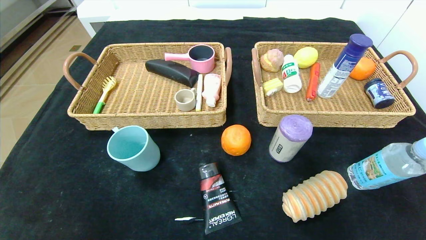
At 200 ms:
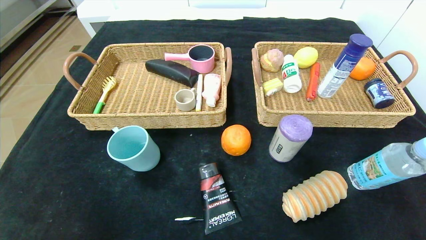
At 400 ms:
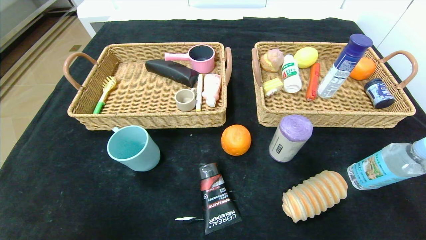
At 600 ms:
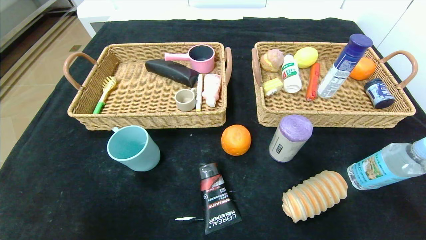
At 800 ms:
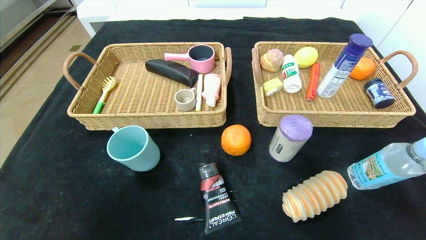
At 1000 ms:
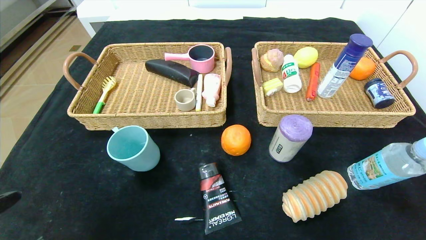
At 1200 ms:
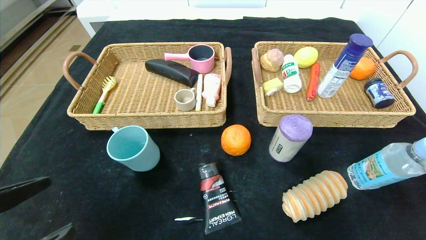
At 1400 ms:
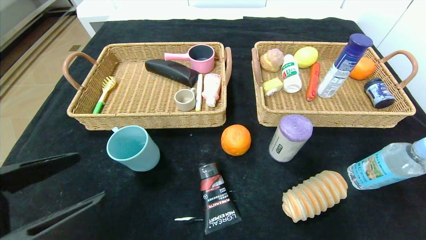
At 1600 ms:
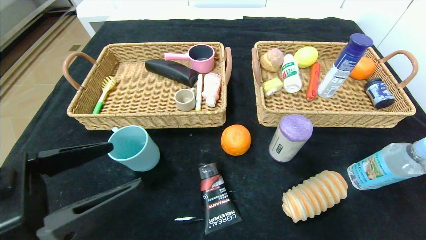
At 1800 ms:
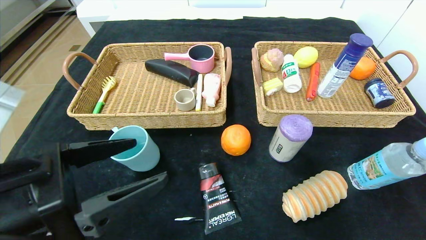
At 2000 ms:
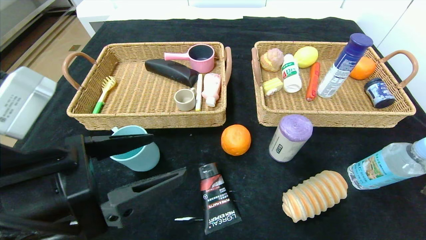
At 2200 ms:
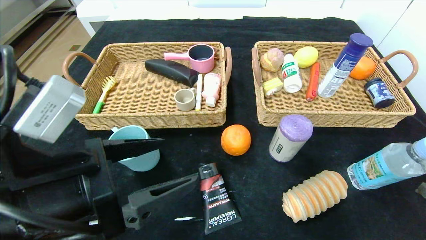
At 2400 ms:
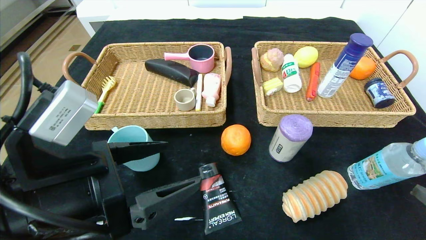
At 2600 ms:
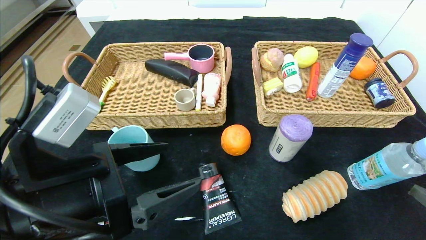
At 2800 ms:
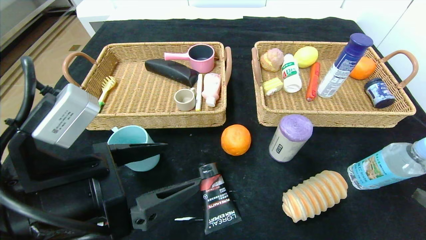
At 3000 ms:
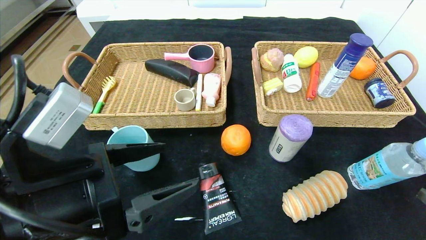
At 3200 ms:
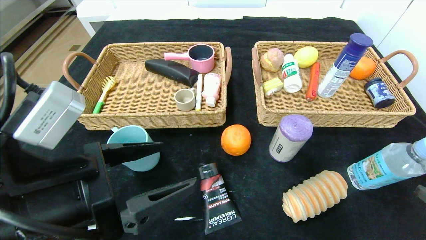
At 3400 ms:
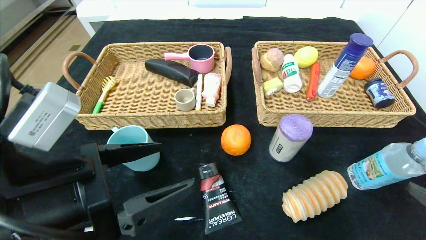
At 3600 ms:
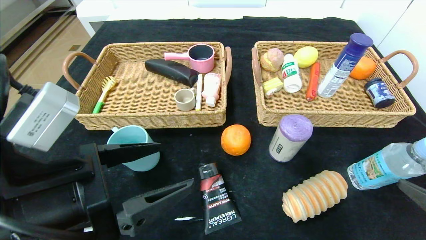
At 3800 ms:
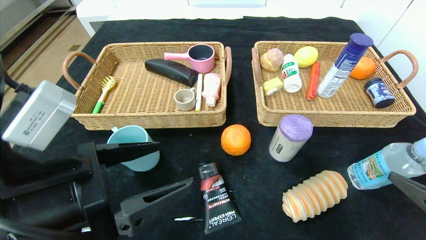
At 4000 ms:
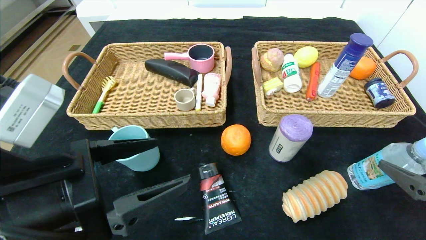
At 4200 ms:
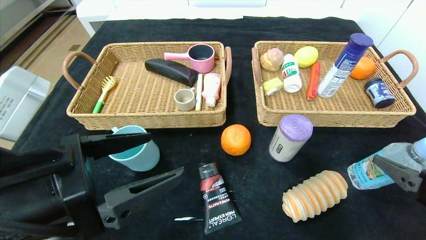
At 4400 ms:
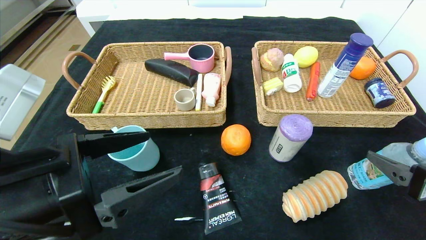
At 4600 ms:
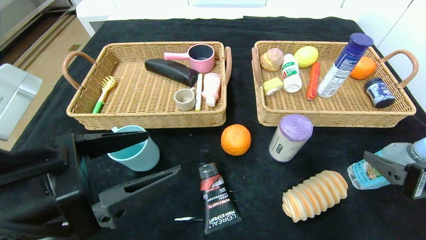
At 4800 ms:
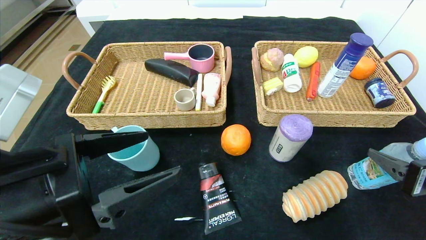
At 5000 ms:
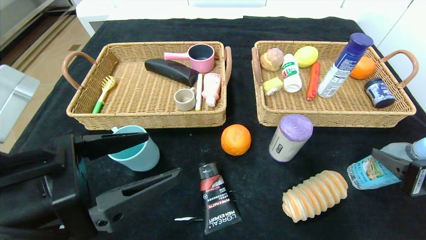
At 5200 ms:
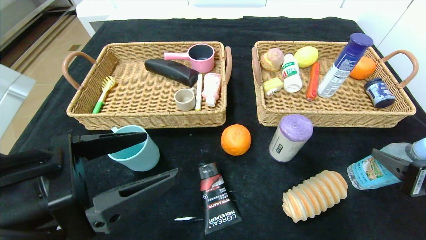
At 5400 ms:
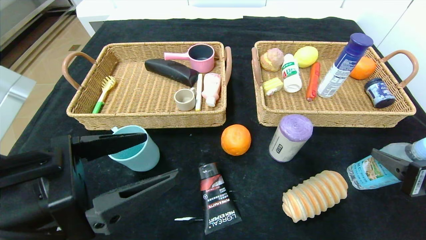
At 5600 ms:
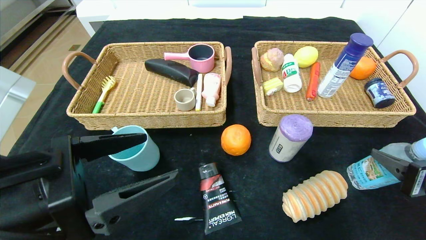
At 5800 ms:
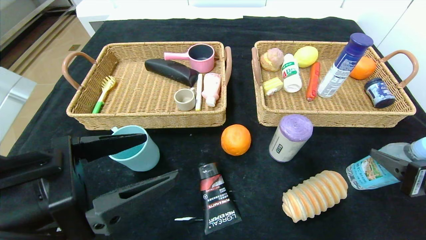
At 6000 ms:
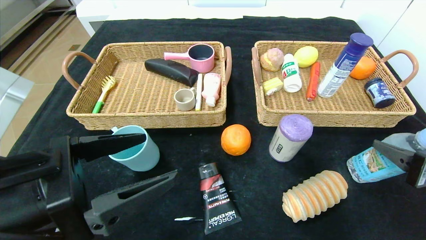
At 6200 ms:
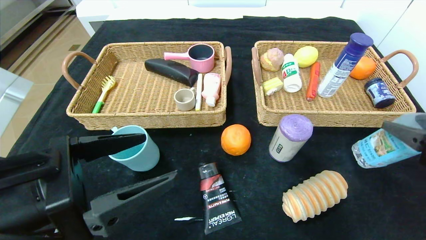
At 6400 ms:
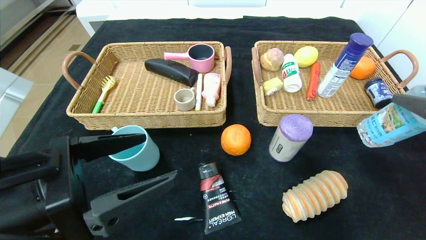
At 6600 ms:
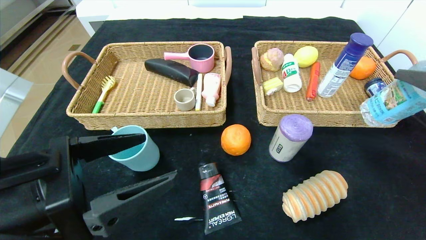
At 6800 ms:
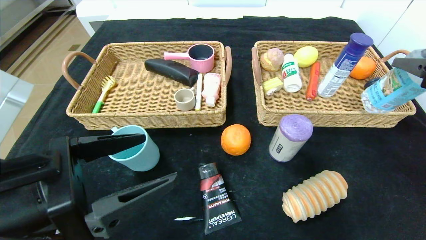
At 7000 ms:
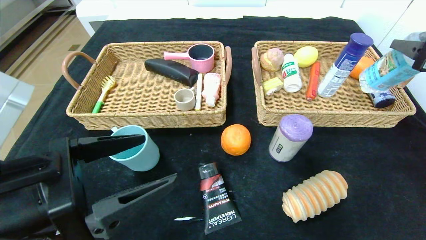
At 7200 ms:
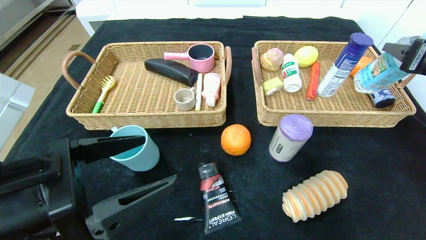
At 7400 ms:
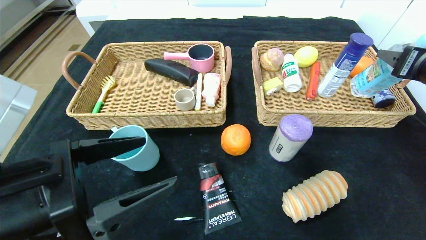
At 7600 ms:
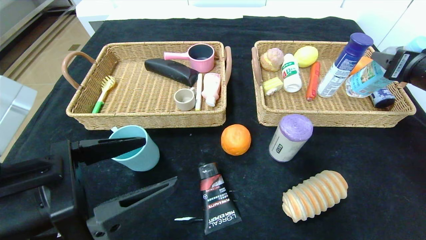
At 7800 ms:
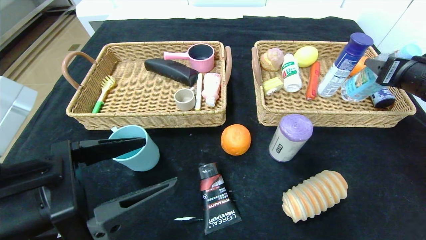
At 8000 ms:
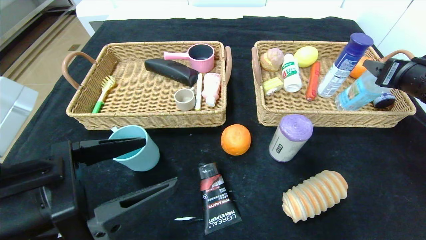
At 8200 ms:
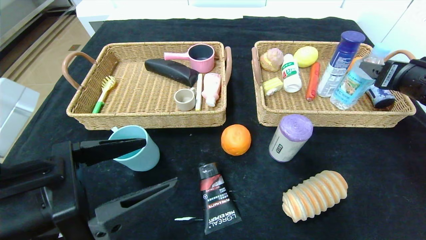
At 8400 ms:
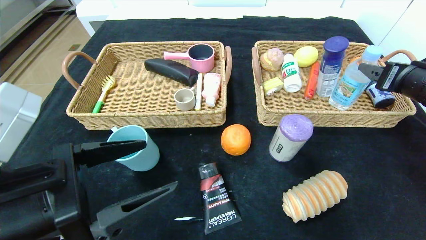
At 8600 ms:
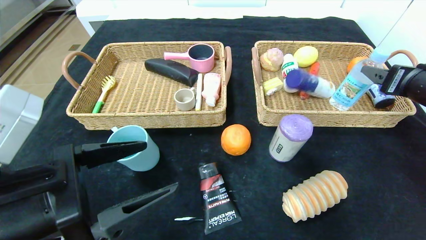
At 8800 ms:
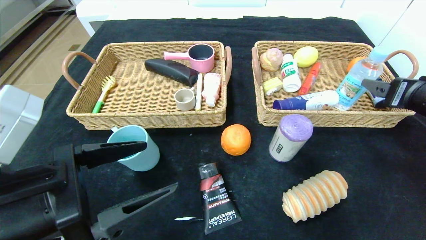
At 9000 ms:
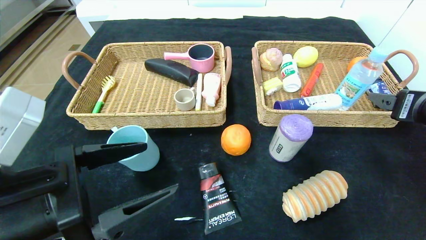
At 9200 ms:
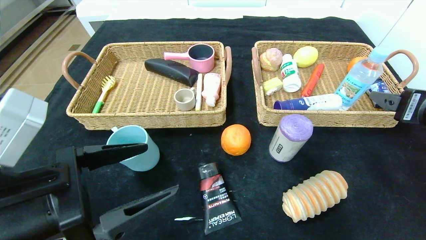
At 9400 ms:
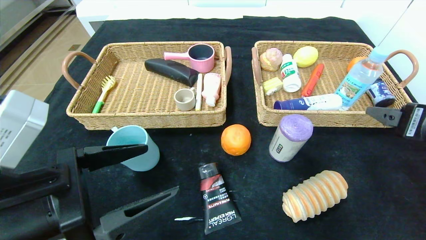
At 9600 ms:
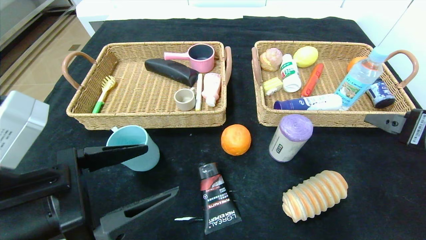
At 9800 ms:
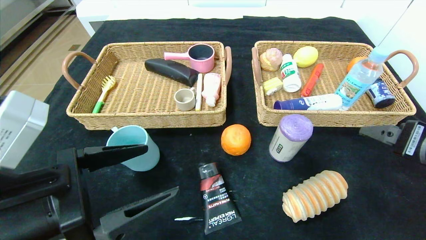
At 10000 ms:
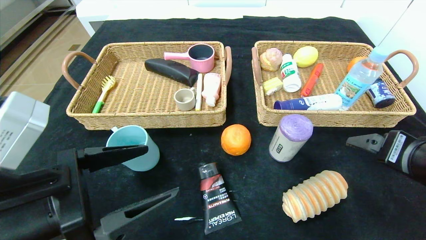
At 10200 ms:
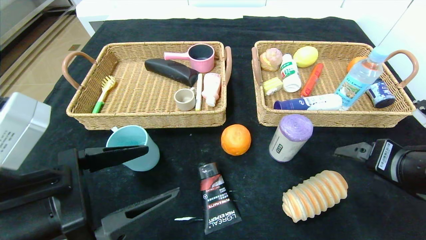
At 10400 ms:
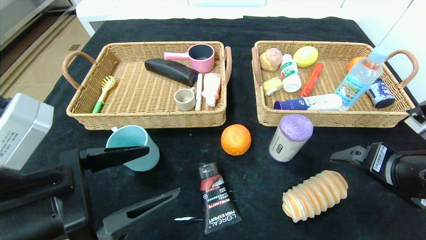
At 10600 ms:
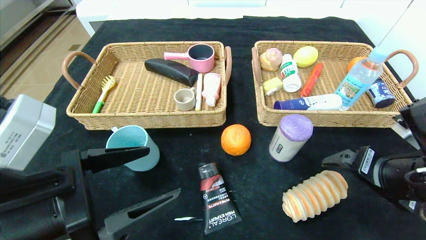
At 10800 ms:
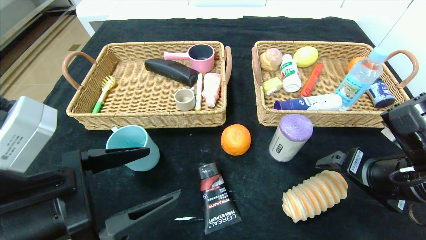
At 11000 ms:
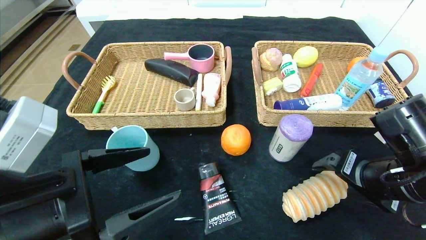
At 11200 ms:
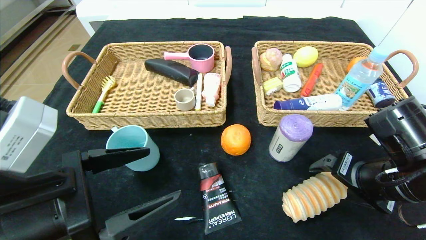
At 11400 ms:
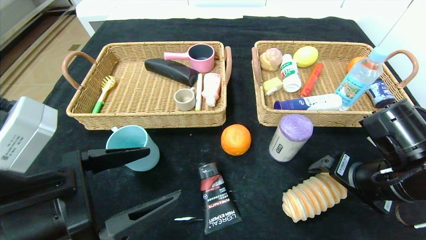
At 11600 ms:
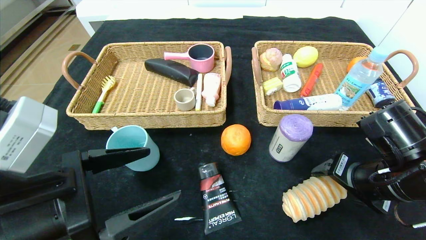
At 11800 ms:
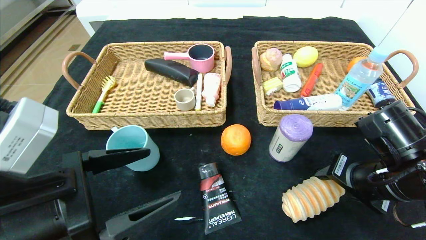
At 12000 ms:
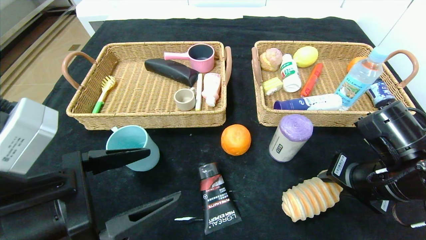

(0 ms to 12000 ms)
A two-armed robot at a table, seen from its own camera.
Step, 0 ms - 8200 ms: Grasp the soda water and put it in the right basket.
0 ms - 1600 ms: Both grippers move upward and forward, some 20 cm.
1600 ms - 3000 ms: The left gripper shifts by roughly 5 cm.
3000 ms - 4400 ms: The right gripper is displaced forward by some 10 cm.
4400 ms - 6000 ms: The right gripper closes.
6000 ms - 7600 ms: The right gripper goes some 15 cm forward and upward.
7600 ms - 9000 ms: The right gripper shifts roughly 5 cm backward, and opens its fingers.
9000 ms - 10400 ms: The right gripper moves to the left, some 5 cm.
10400 ms - 12000 ms: The right gripper ends up roughly 5 cm from where it was, and closes.

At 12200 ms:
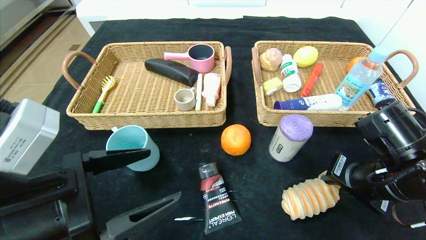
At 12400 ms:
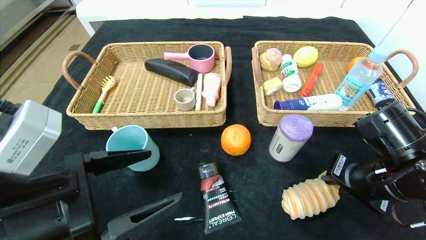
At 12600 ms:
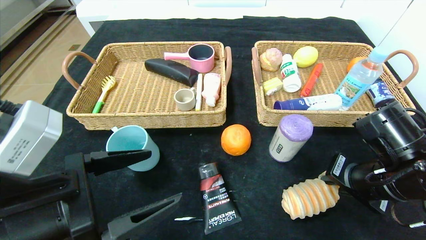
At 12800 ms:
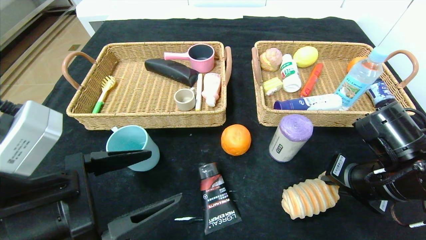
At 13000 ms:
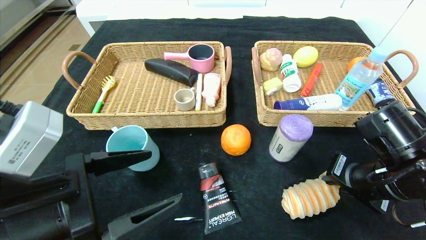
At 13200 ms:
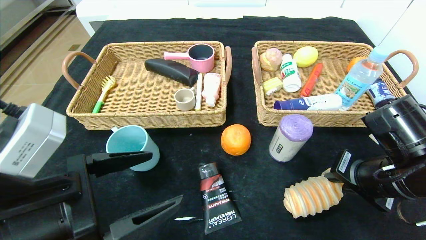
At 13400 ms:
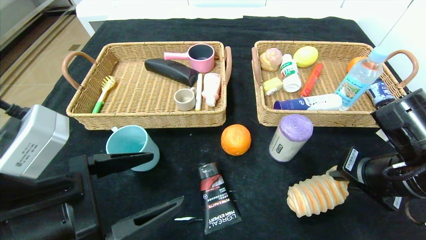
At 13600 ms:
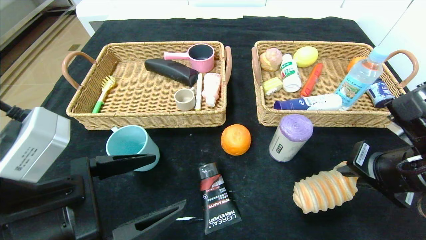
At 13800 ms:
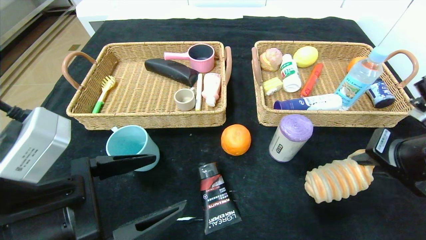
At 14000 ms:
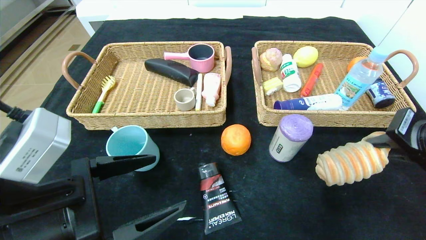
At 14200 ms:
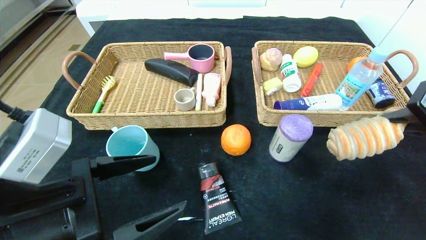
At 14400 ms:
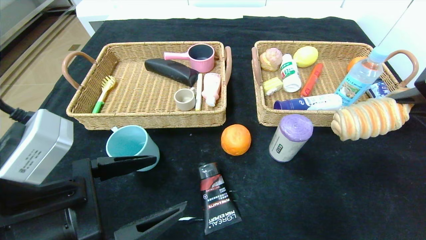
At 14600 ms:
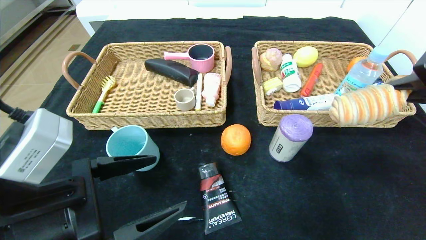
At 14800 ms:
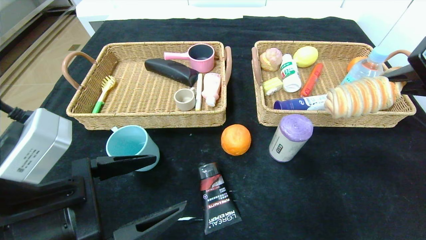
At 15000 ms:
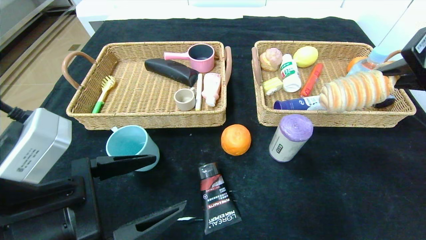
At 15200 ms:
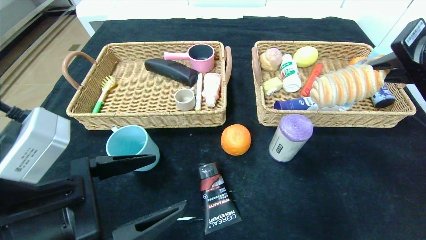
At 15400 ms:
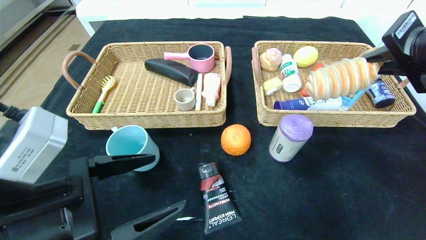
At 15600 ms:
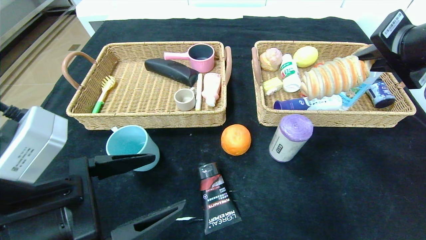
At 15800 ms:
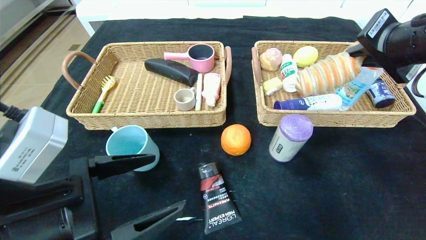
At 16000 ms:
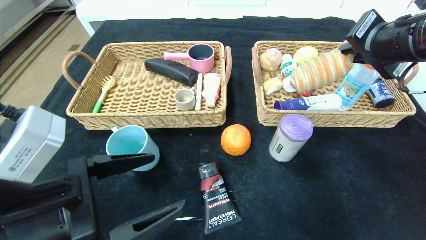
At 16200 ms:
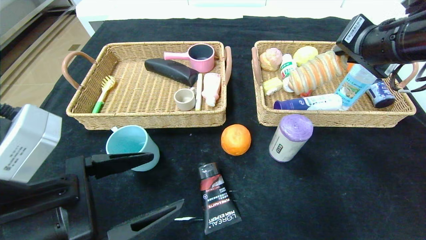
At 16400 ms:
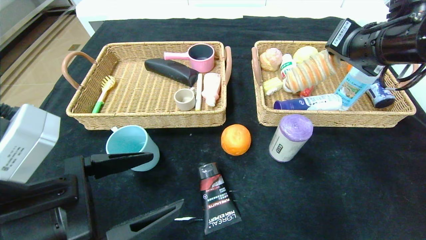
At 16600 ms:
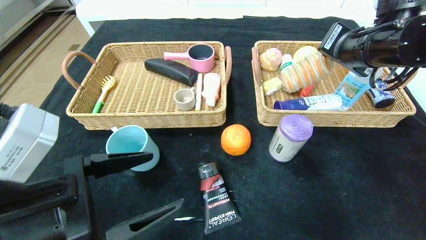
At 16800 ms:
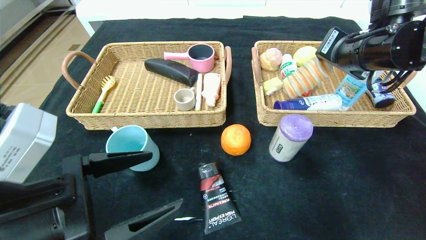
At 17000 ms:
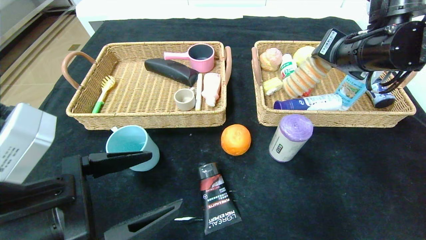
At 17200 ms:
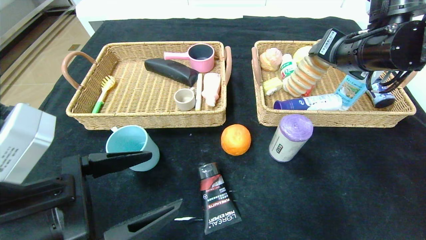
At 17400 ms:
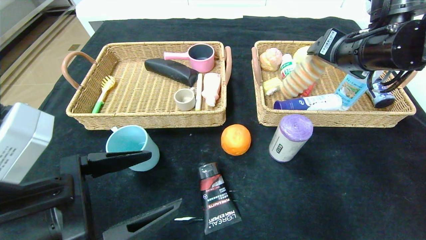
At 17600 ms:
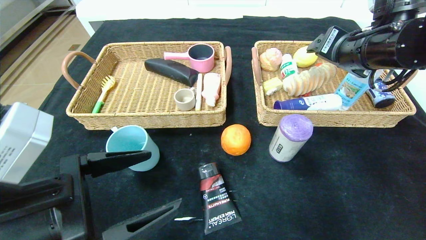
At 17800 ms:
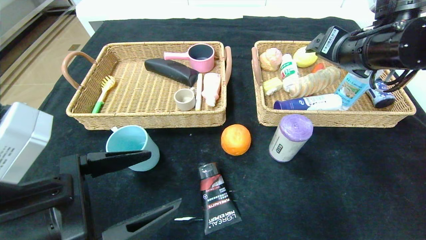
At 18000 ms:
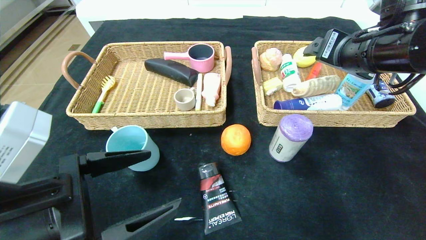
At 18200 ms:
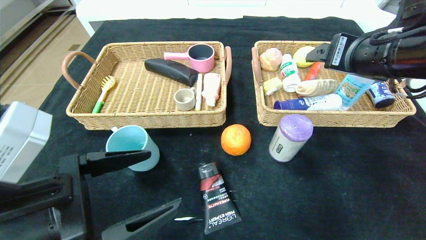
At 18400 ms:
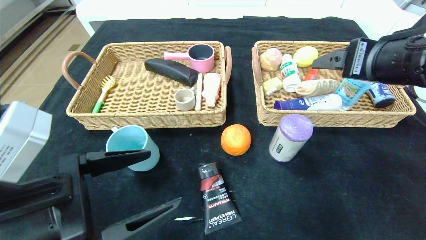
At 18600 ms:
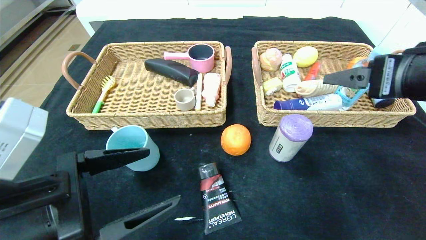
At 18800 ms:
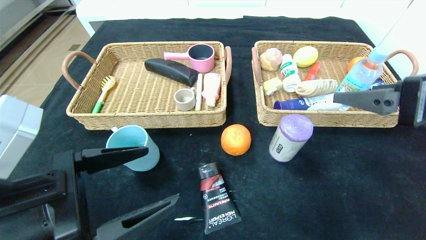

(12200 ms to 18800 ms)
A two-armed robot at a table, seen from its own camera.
Step, 12200 ms - 17600 ms: Grasp the long bread and put it in the right basket.
12200 ms - 13800 ms: The right gripper heads upward, covering some 5 cm.
13800 ms - 15400 ms: The right gripper shifts approximately 10 cm upward.
15400 ms - 17200 ms: The right gripper travels forward by roughly 10 cm, and opens its fingers.
17200 ms - 18800 ms: The right gripper travels backward by some 15 cm, and opens.
